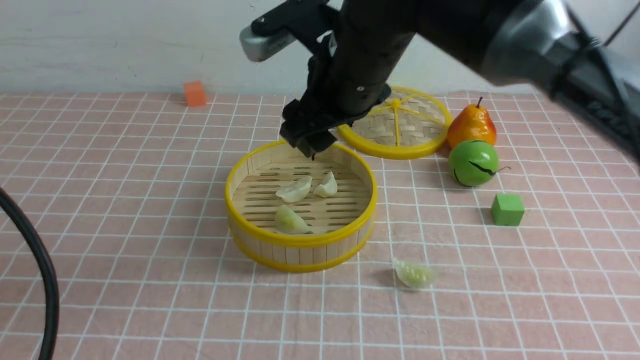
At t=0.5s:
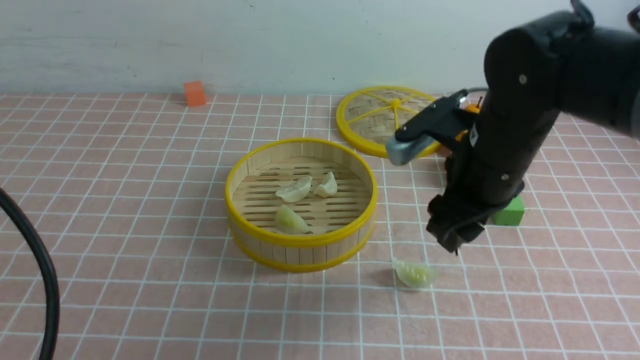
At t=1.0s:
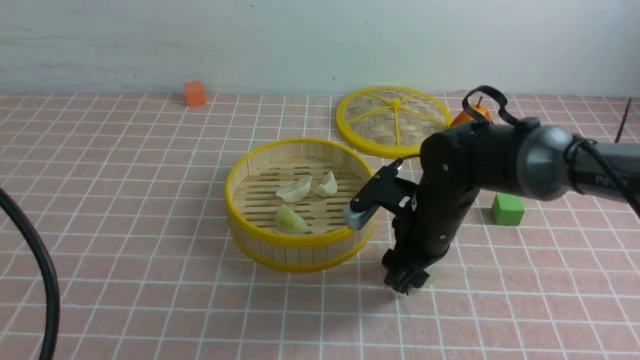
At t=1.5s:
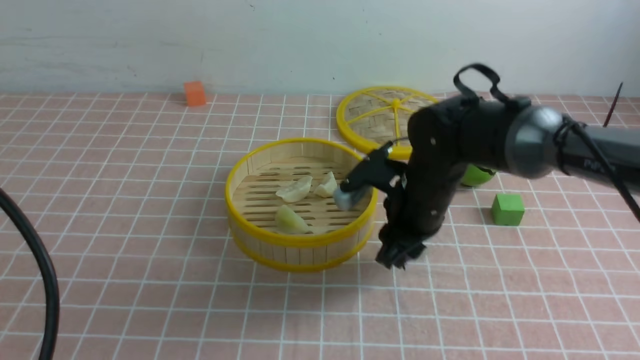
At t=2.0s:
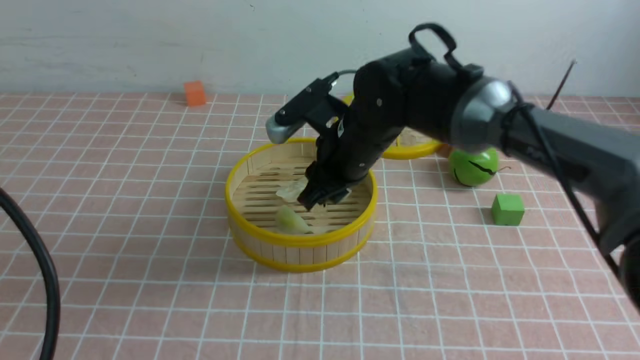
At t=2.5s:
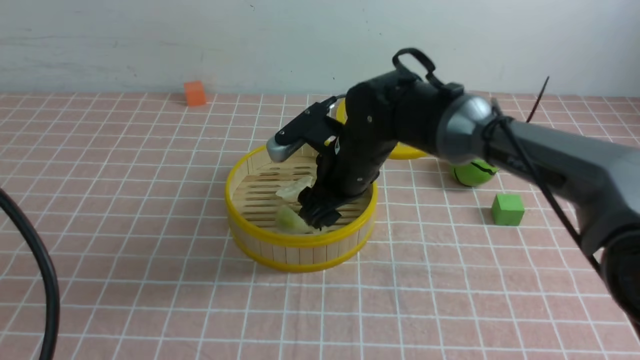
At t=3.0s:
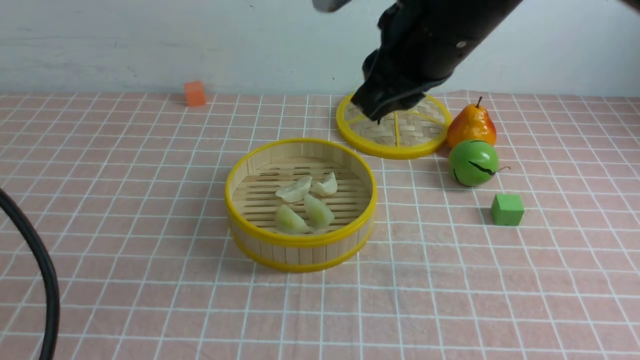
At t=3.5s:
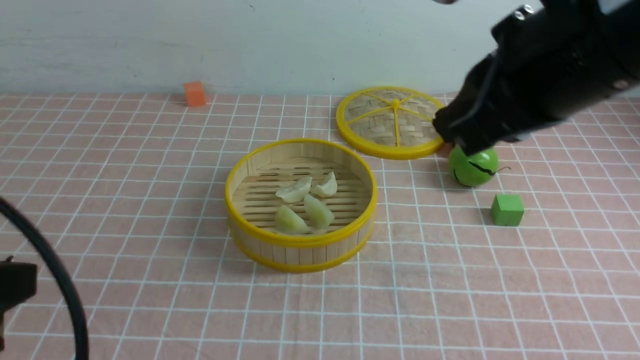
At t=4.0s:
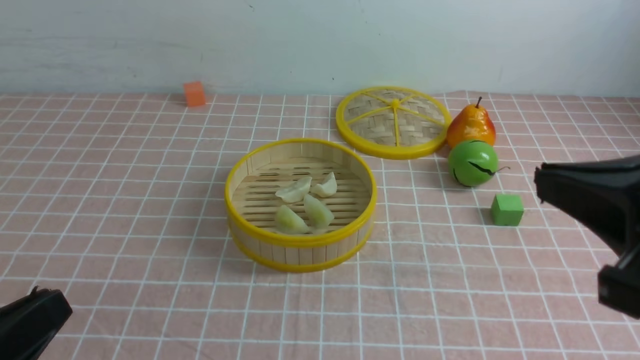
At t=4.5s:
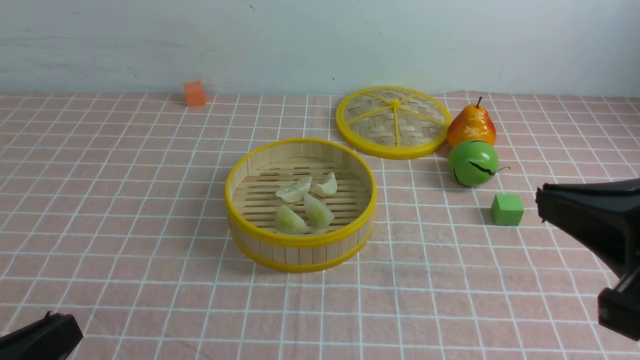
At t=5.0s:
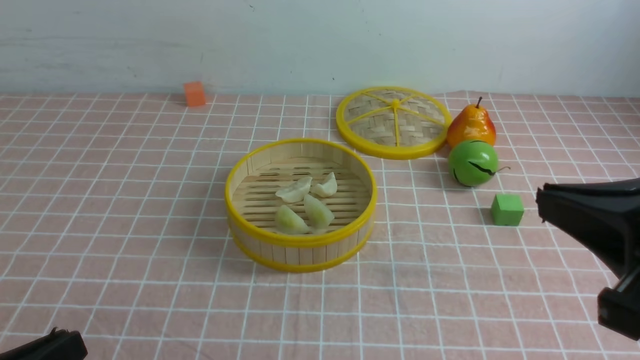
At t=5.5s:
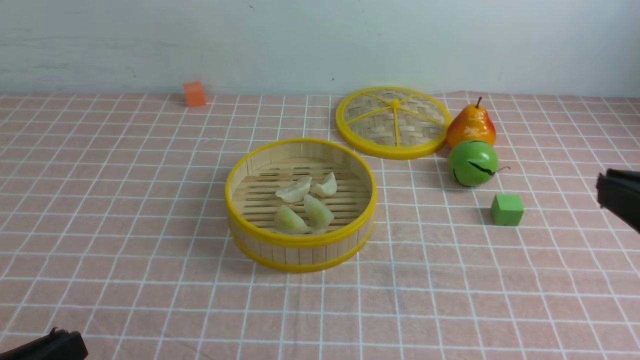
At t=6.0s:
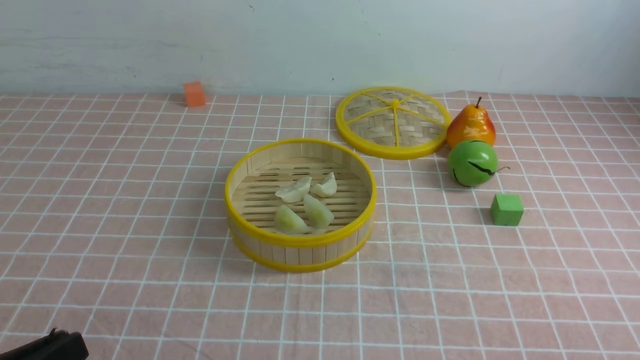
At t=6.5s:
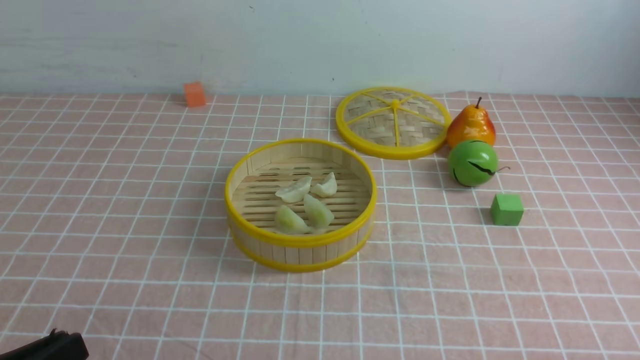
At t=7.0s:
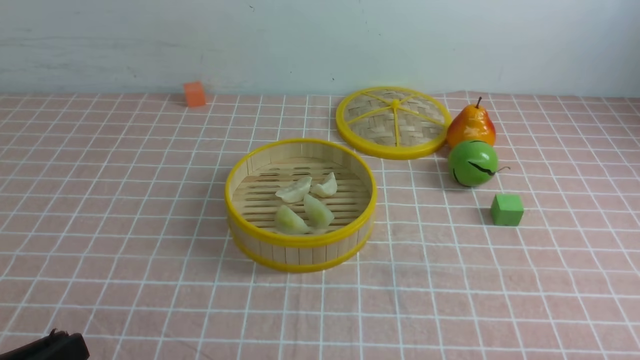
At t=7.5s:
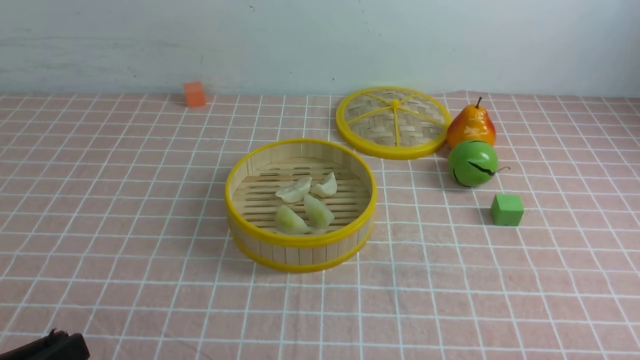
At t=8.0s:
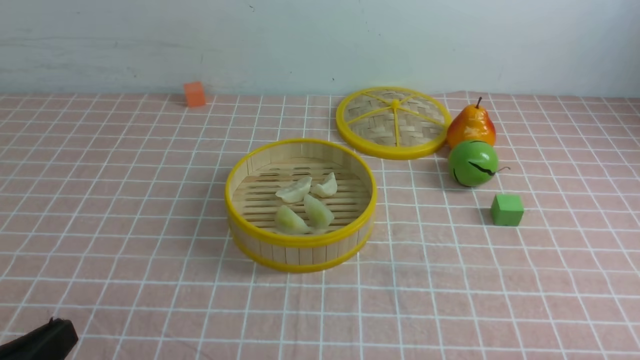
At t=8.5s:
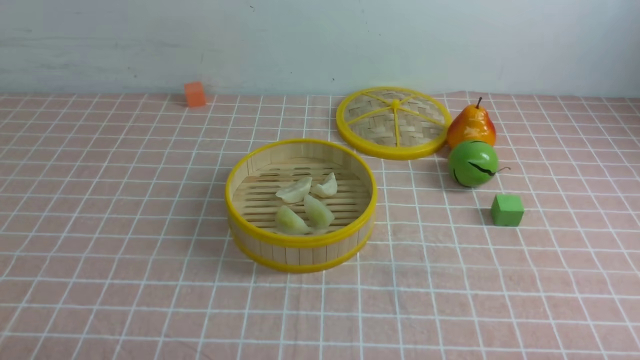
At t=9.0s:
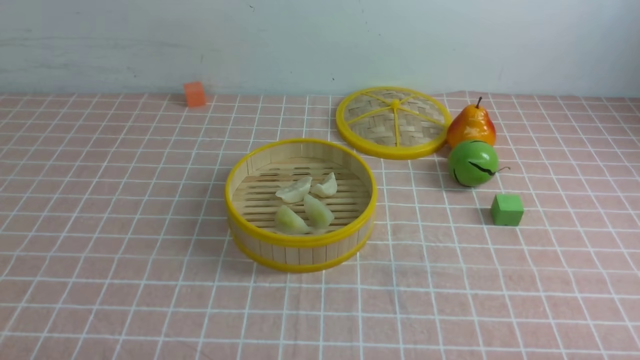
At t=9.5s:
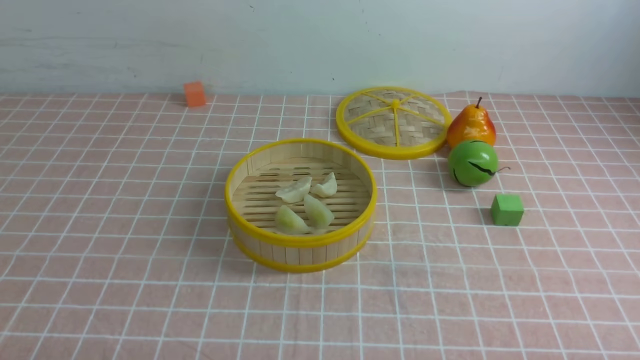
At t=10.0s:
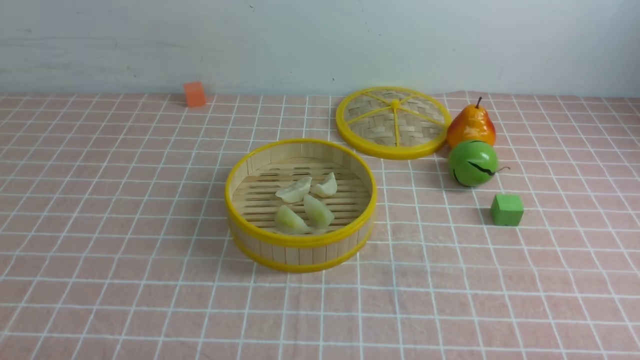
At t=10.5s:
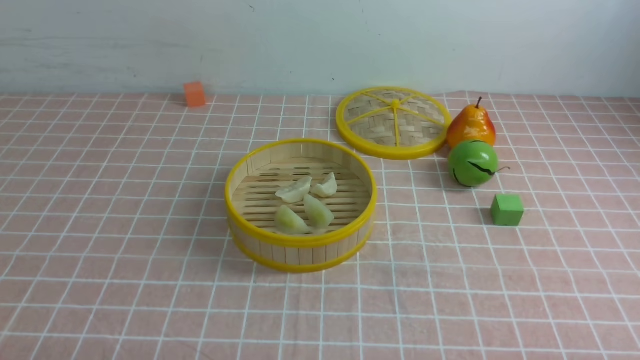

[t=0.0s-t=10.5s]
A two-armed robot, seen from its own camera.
Task of the whole recording: put the dumplings into the steamer on the table with the pink tablecloth.
Step, t=0.0s to t=1.0s: use the right arm to grab a dumpling.
Step, t=1.5s to t=2.5s: use the right arm to put the dumpling into the steamer.
t=0.0s to t=2.0s: The right gripper moves downward and forward, some 10 cm, and closes.
t=2.0s to t=4.0s: The left gripper travels downward by about 10 cm. Meanwhile the right gripper shifts roughly 35 cm backward, to the right and upward, and closes its fingers.
t=4.0s to t=6.5s: The right gripper travels downward, to the right and backward by approximately 25 cm.
t=6.5s to t=8.5s: The left gripper shifts roughly 5 cm downward.
